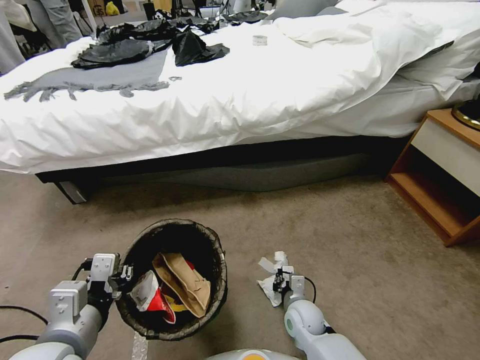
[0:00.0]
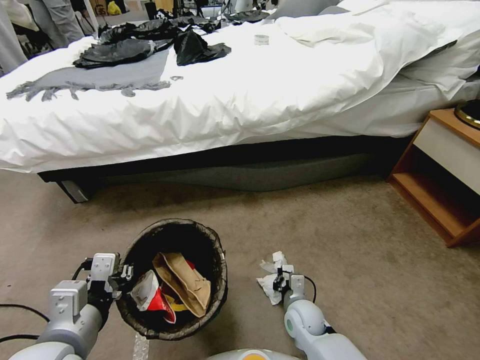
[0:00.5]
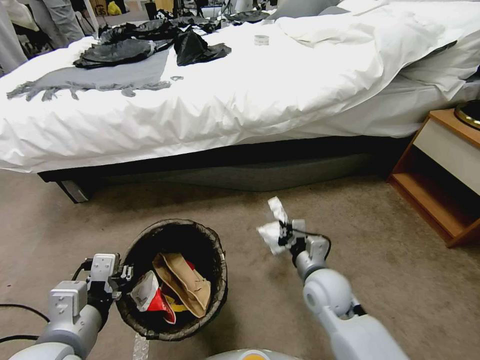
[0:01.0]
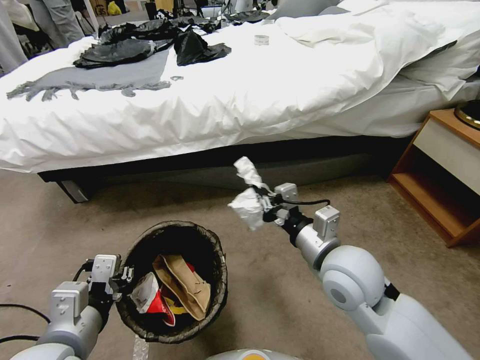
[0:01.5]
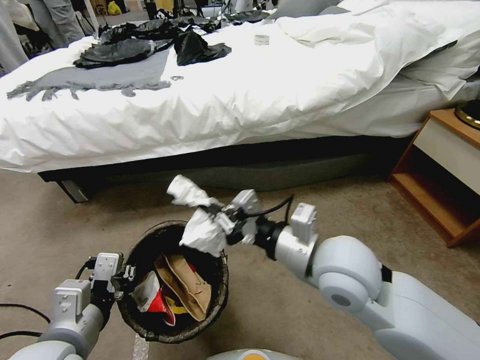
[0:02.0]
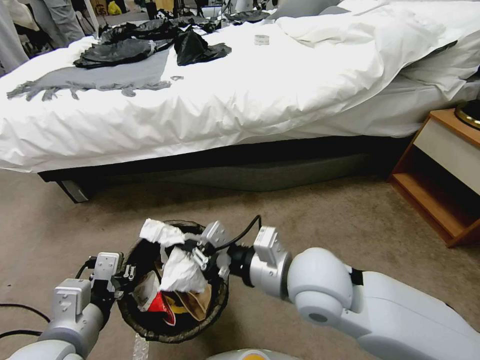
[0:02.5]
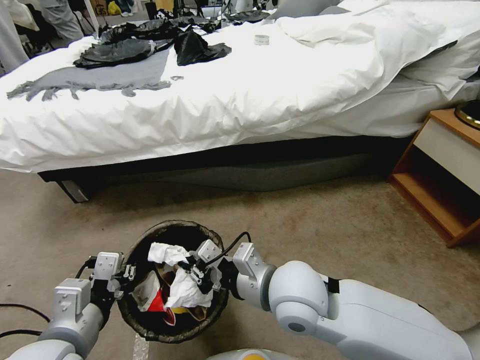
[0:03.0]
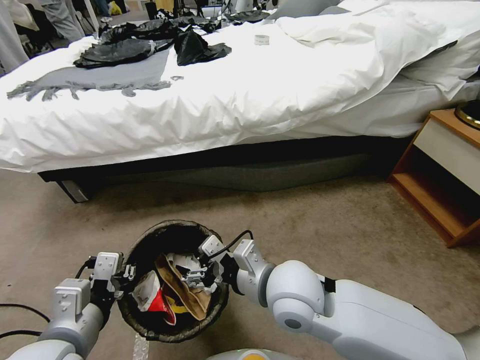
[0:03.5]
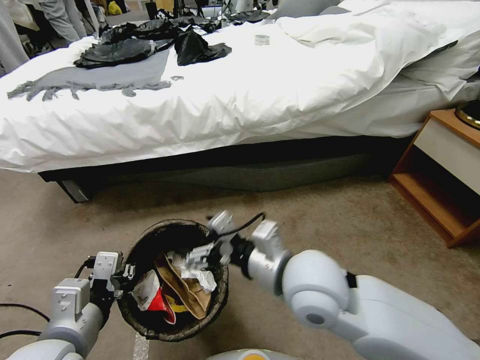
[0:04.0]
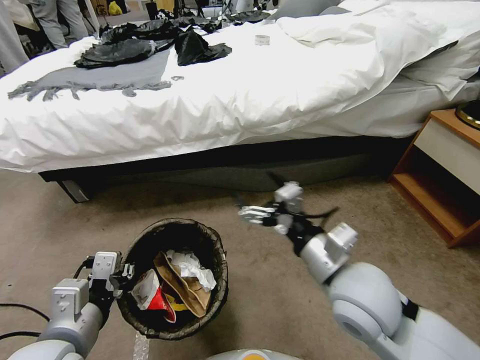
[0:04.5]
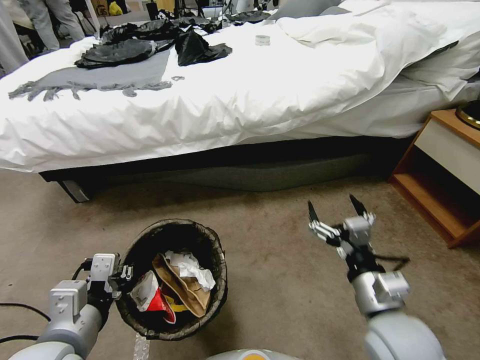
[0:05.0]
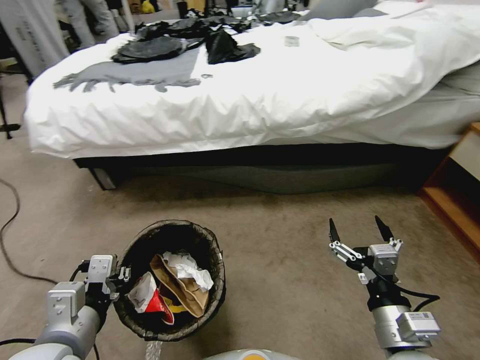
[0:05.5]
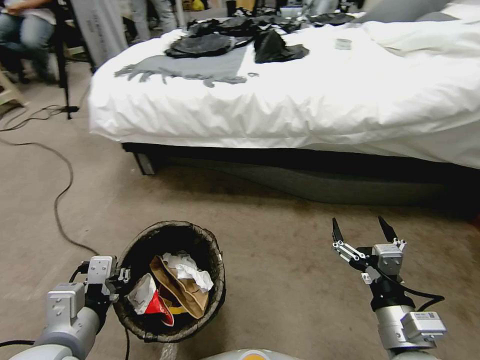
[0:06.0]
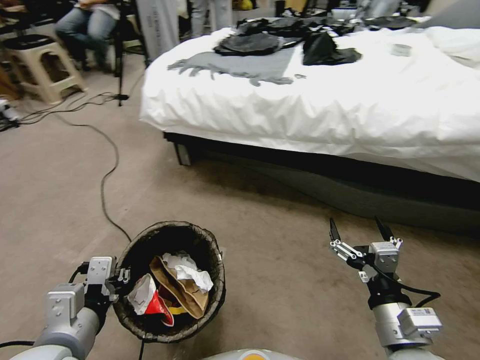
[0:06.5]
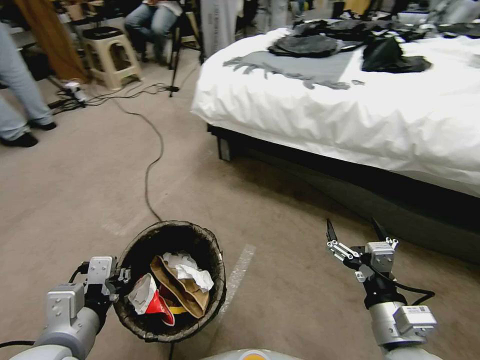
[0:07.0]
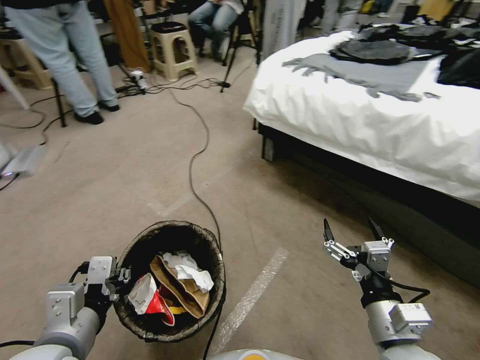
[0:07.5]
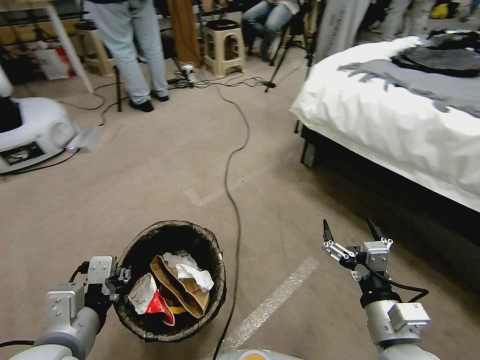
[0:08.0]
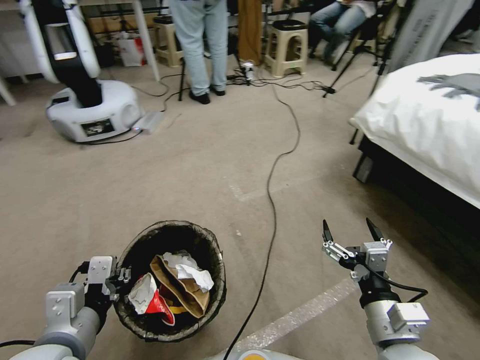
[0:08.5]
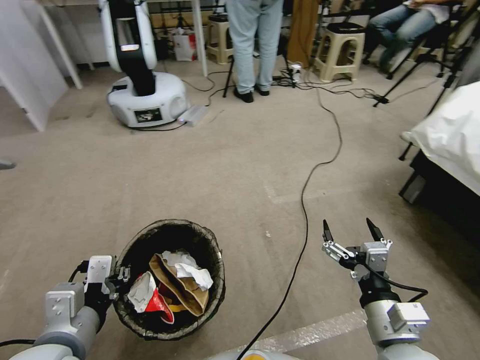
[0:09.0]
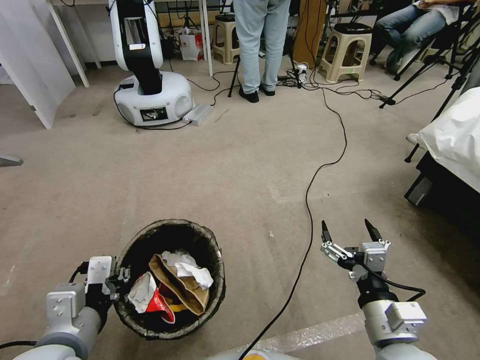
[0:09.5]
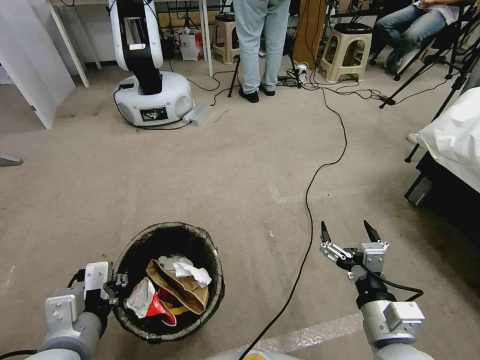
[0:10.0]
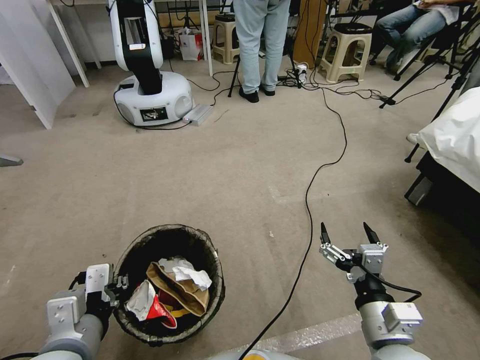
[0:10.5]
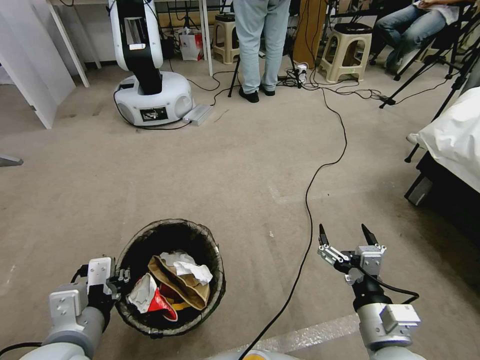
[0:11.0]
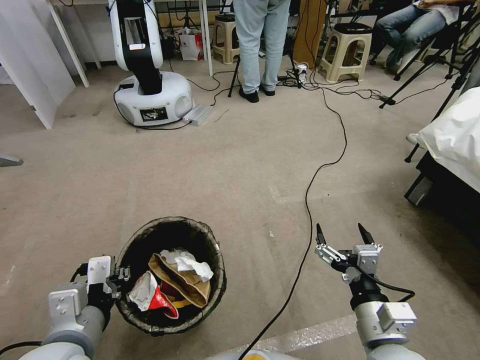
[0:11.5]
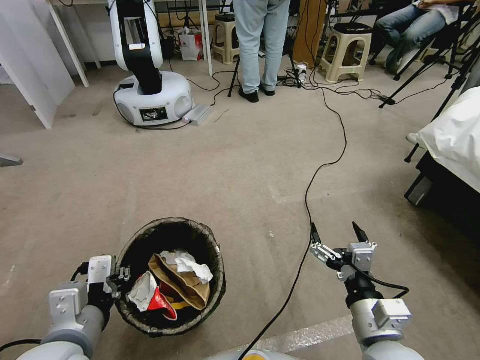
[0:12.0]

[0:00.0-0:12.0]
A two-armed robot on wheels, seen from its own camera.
Task of the whole recording: Pick up the trash bin, then pick up the garbage from the floor and place it into the trash bin.
0:00.0 to 0:02.0: The right gripper goes roughly 35 cm upward.
0:02.0 to 0:04.0: The right gripper opens.
0:04.0 to 0:06.0: The right gripper shifts about 20 cm to the right, backward and downward.
0:10.0 to 0:12.0: There are only small adjustments of the grippers.

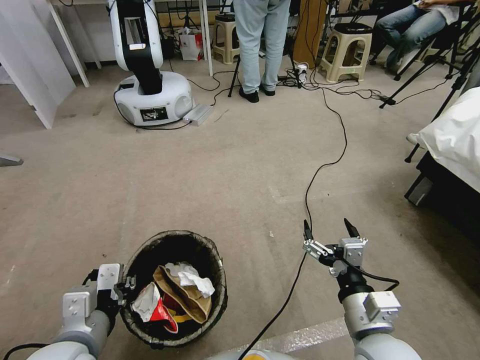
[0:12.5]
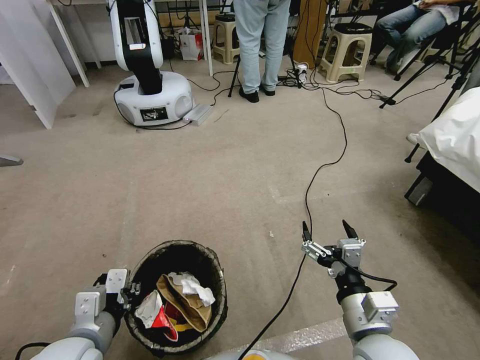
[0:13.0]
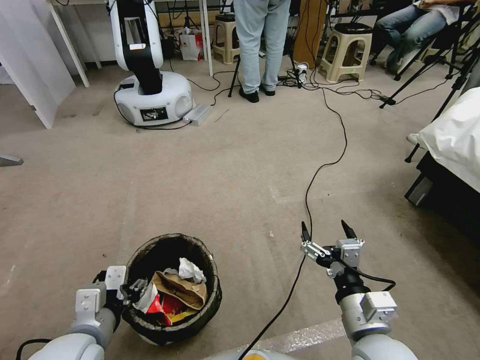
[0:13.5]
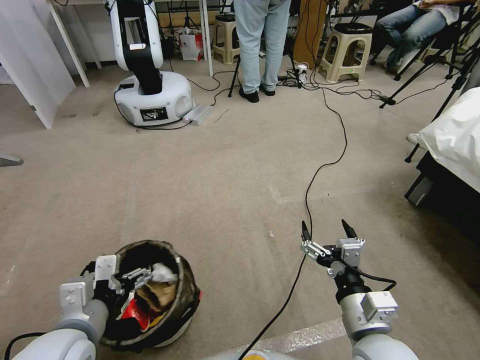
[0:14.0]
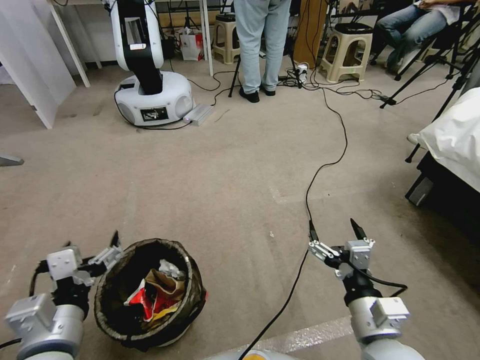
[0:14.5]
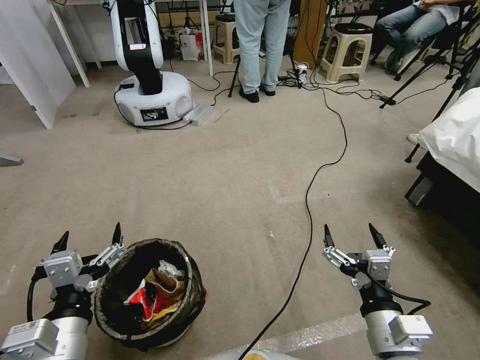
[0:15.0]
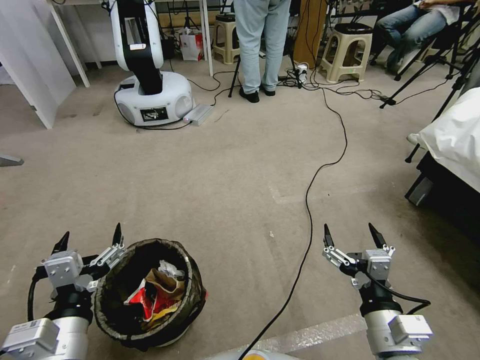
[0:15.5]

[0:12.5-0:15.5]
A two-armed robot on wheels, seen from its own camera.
Task of the whole recording: Pick up the trash bin, then pick up the garbage from the floor and place it into the trash bin.
0:12.5 to 0:14.0: The left gripper opens up.
0:14.0 to 0:15.5: The left gripper moves roughly 5 cm.
